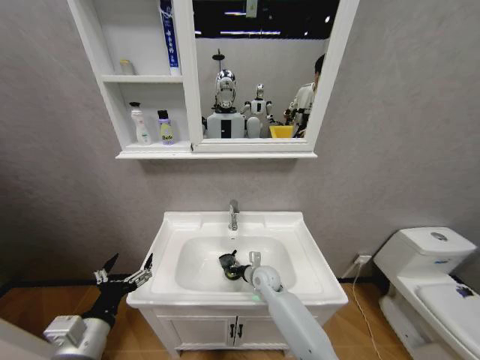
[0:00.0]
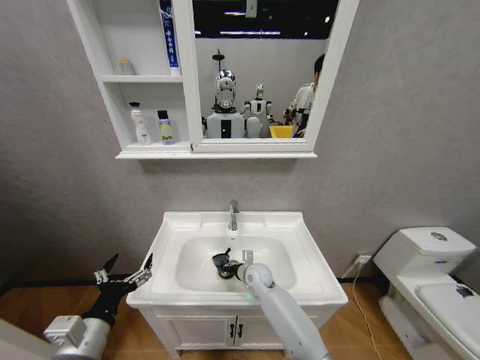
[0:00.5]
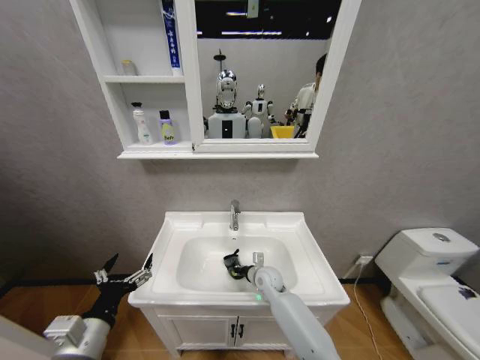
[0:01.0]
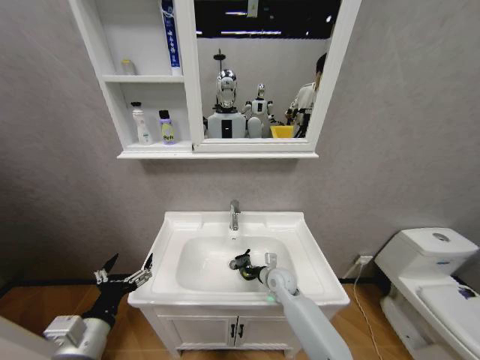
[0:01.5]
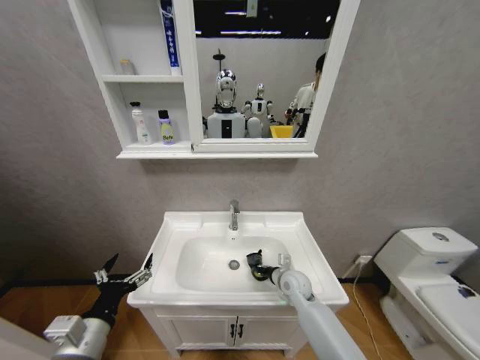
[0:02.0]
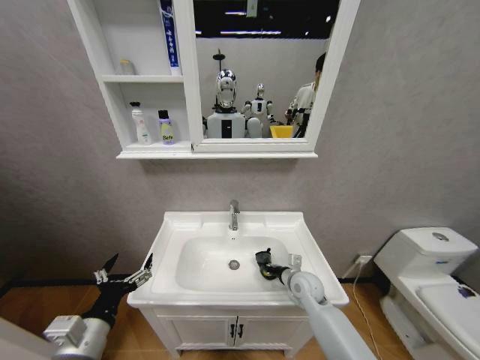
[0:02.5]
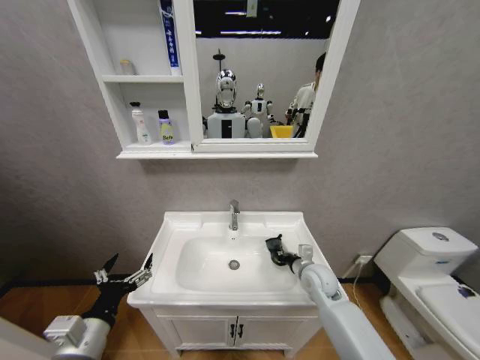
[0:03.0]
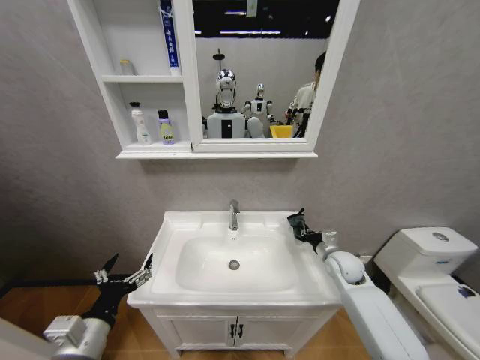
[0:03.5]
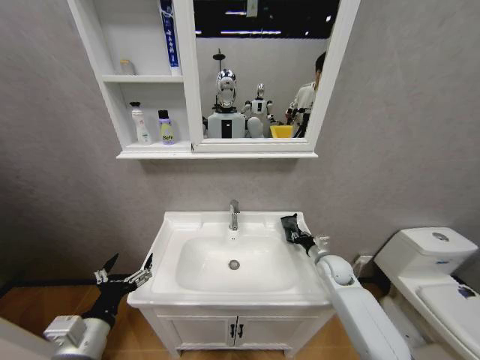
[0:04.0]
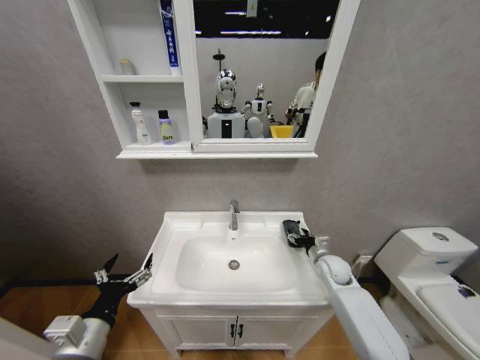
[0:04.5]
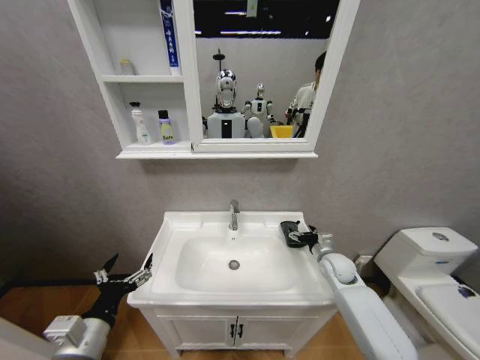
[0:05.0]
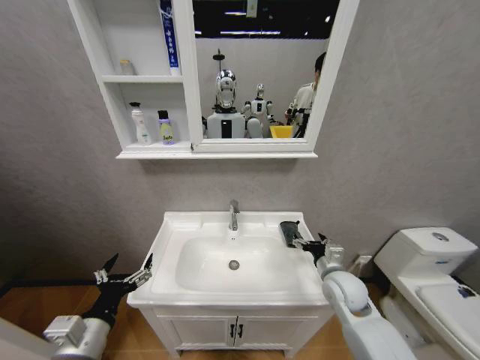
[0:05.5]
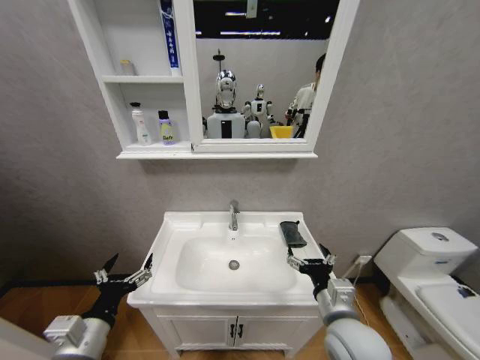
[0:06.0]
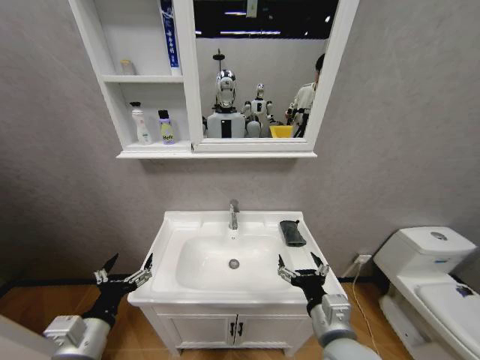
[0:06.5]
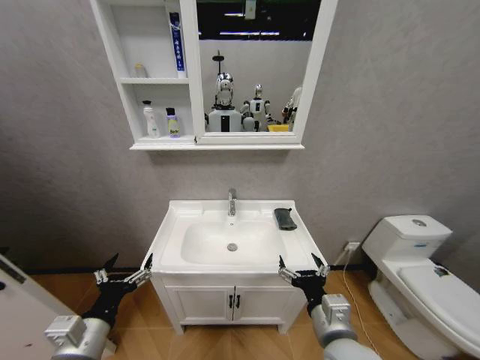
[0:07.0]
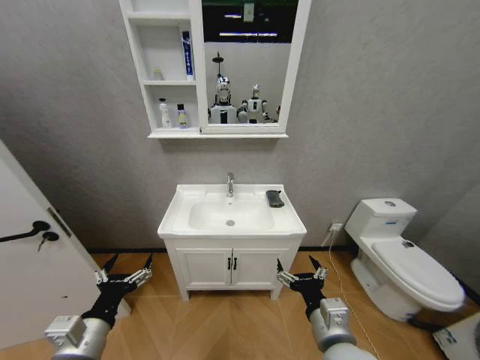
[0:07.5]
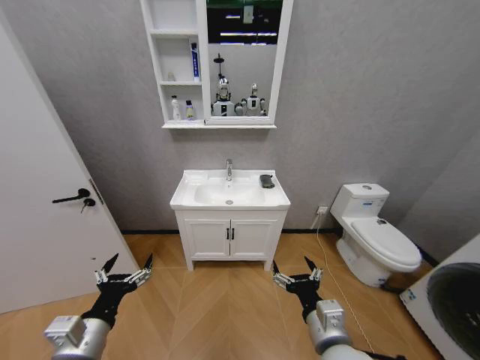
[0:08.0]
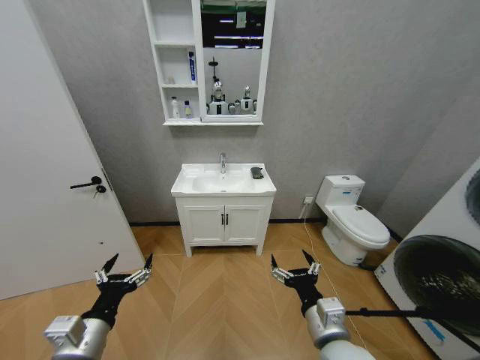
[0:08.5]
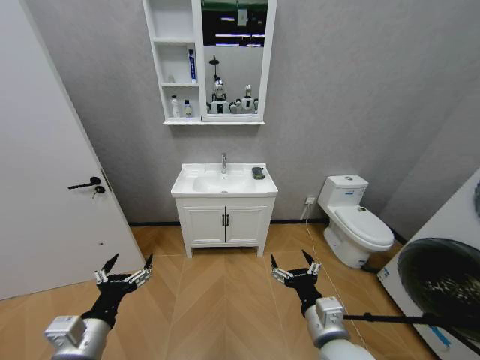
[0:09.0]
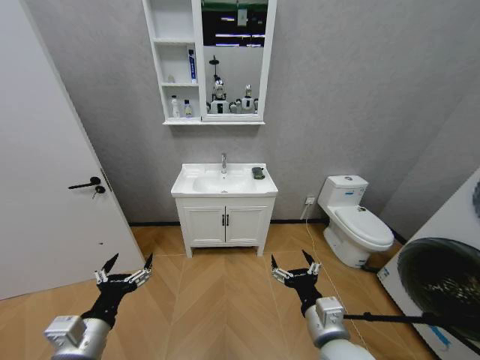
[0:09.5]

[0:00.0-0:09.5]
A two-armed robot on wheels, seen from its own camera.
Task of the whole recording: Move facial cleanser and shampoo from washbasin to cabinet, then wipe washbasin with towel.
0:00.0 to 0:02.0: The right gripper goes about 10 cm to the right.
0:02.0 to 0:04.0: The right gripper shifts about 15 cm to the right.
0:04.0 to 0:05.5: The right gripper goes approximately 15 cm backward, upward and to the left, and opens its fingers.
0:05.5 to 0:07.5: The right gripper moves backward and to the left, approximately 20 cm.

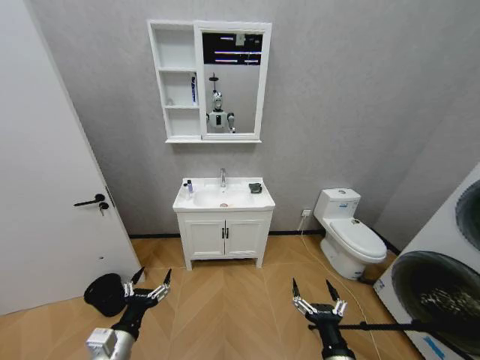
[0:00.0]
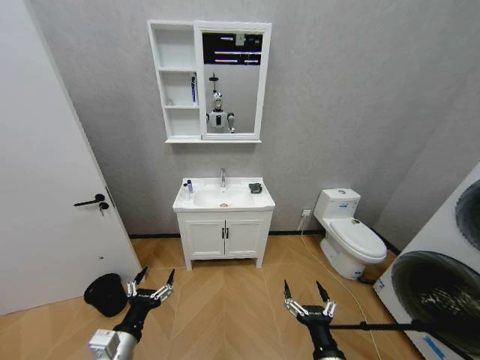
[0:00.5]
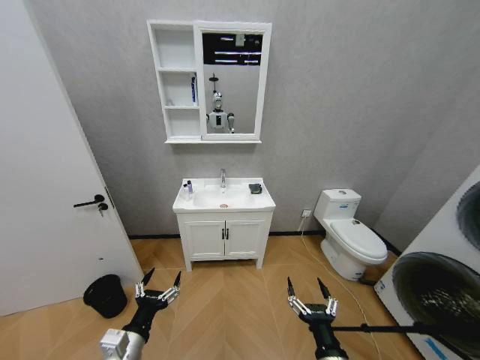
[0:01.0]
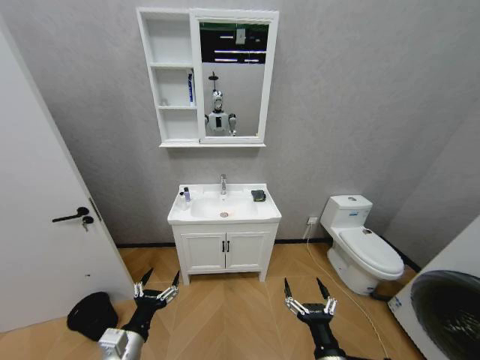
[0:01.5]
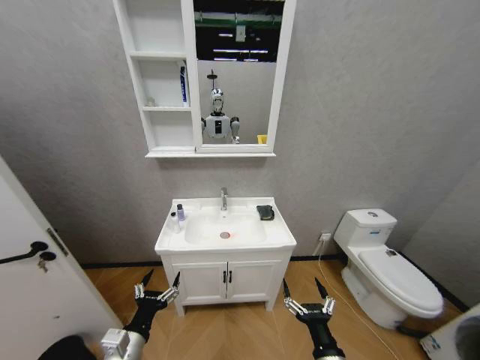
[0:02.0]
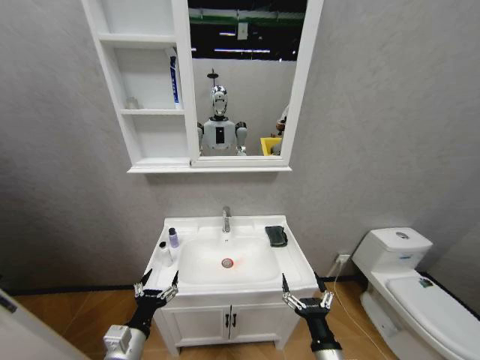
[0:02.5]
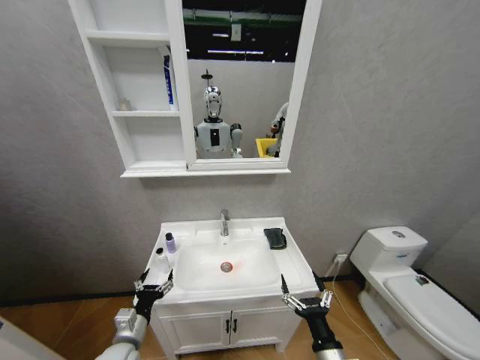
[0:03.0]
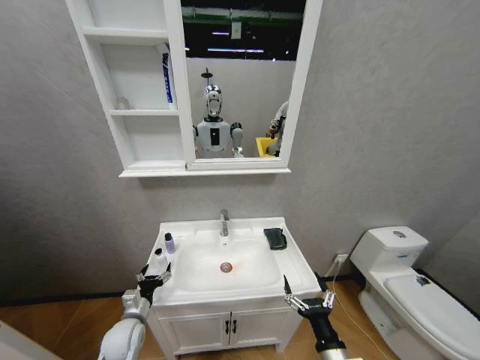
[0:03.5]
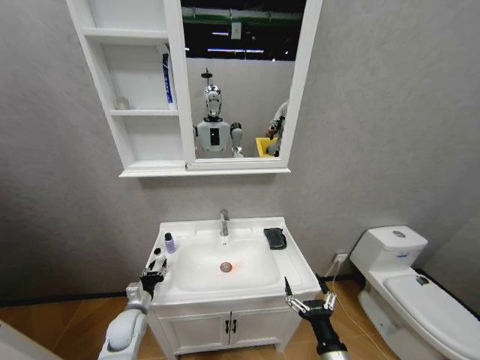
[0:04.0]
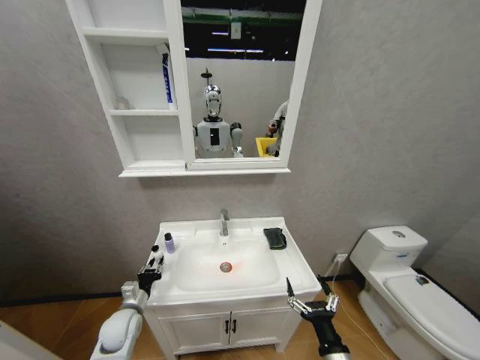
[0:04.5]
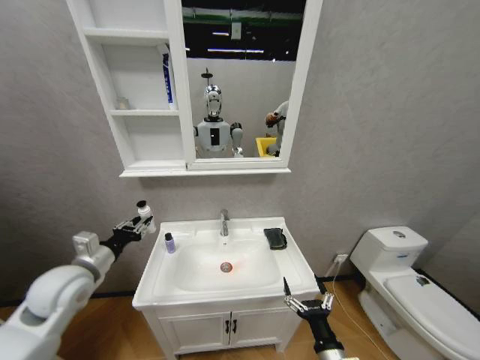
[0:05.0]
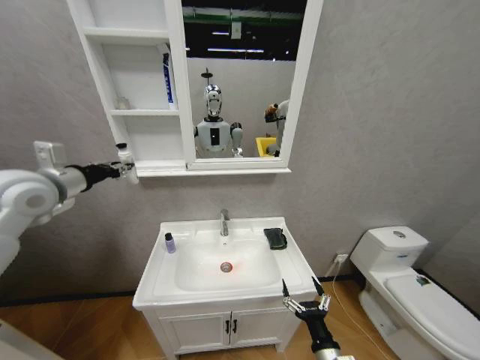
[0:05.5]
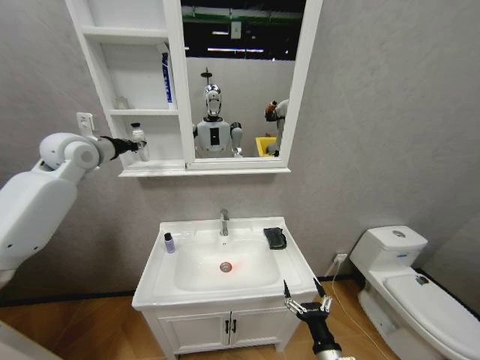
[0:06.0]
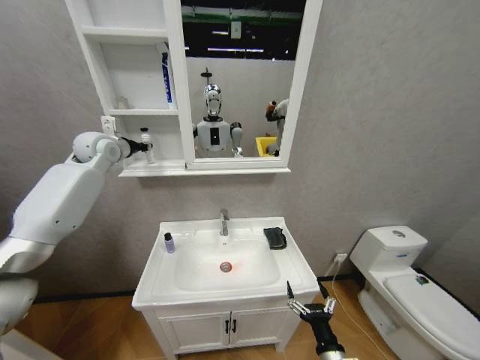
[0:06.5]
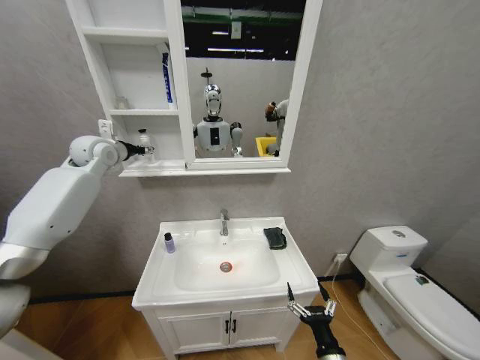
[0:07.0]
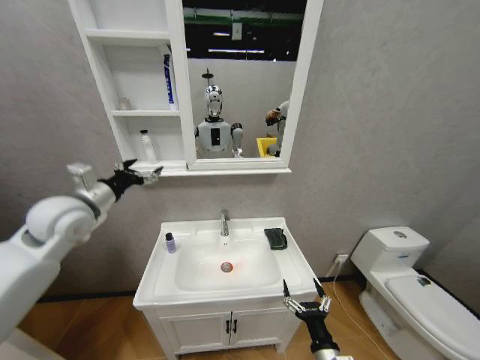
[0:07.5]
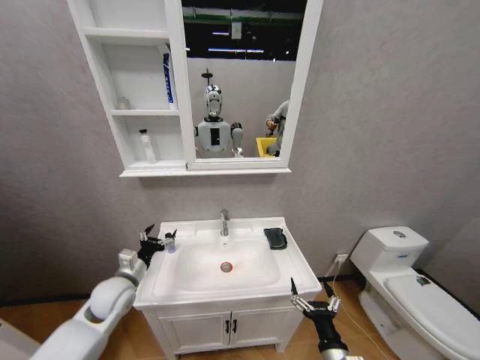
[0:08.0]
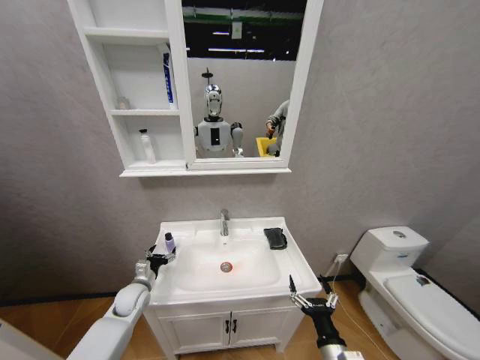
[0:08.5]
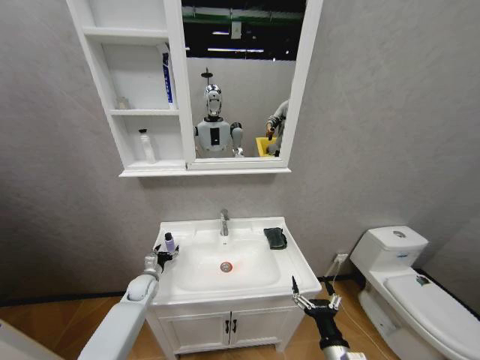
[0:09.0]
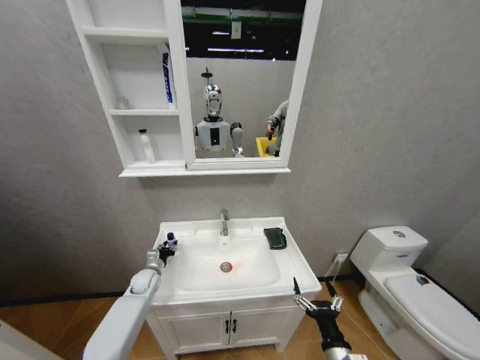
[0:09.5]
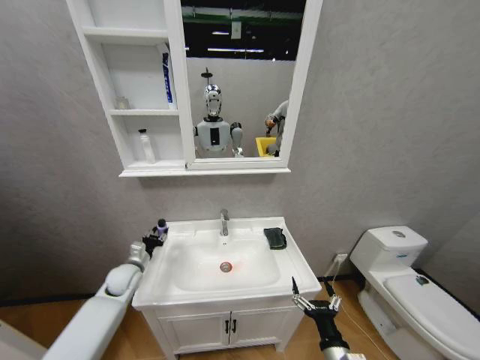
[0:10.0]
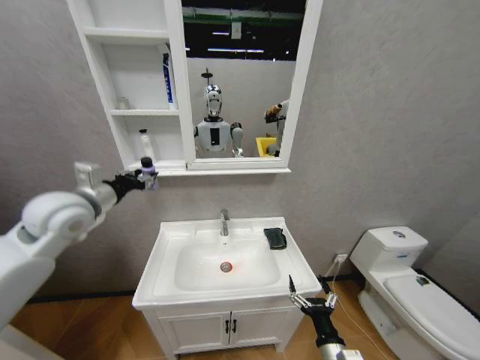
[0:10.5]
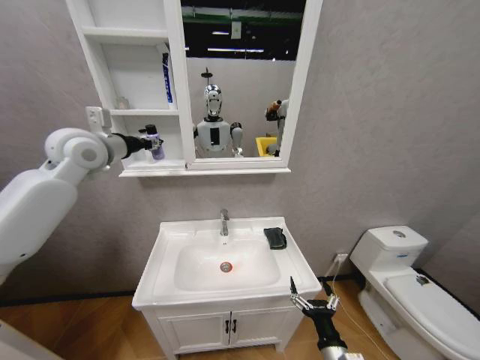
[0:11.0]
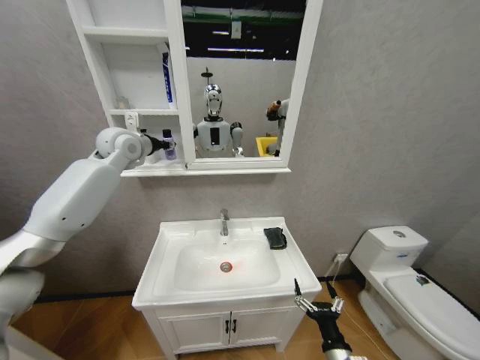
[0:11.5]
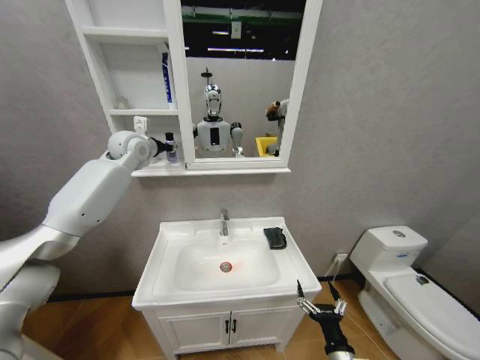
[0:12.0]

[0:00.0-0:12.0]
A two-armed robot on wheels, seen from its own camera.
Task of the whole recording: Move facial cleanser and shampoo from washbasin to cabinet, then wipe washbasin with towel.
0:02.0 to 0:04.0: The left gripper moves forward and downward, some 20 cm, and closes up.
0:04.0 to 0:06.0: The left gripper is displaced upward by approximately 50 cm.
0:06.0 to 0:08.0: The left gripper goes roughly 35 cm downward, and opens up.
0:08.0 to 0:10.0: The left gripper goes approximately 10 cm forward, and closes.
0:10.0 to 0:12.0: The left gripper travels upward by some 40 cm.

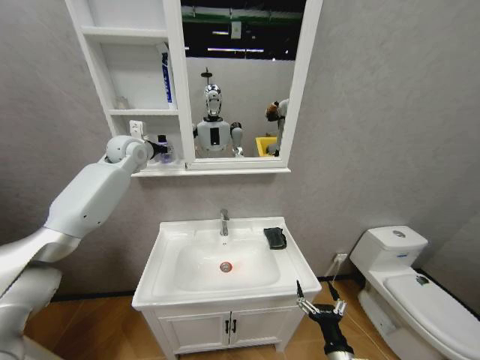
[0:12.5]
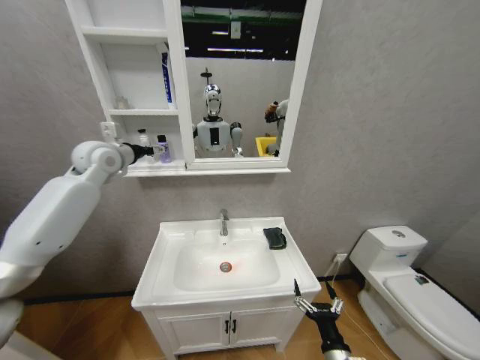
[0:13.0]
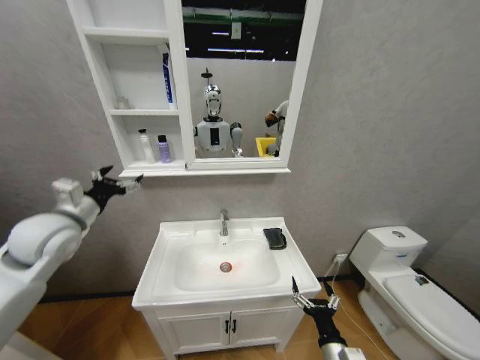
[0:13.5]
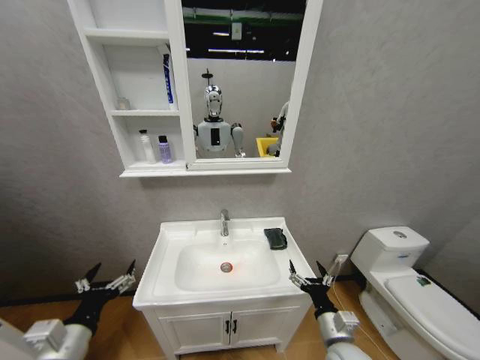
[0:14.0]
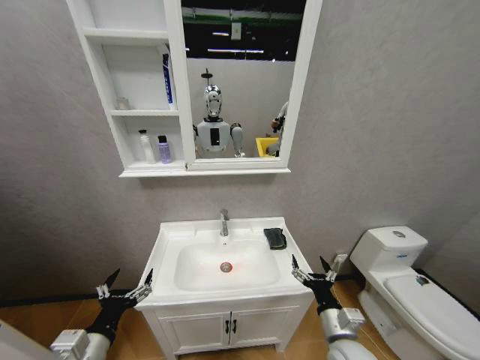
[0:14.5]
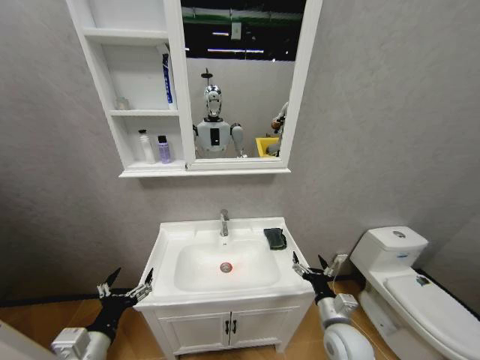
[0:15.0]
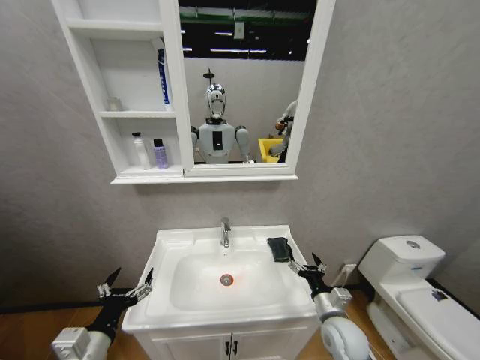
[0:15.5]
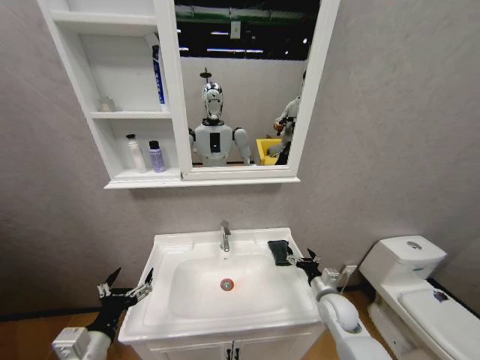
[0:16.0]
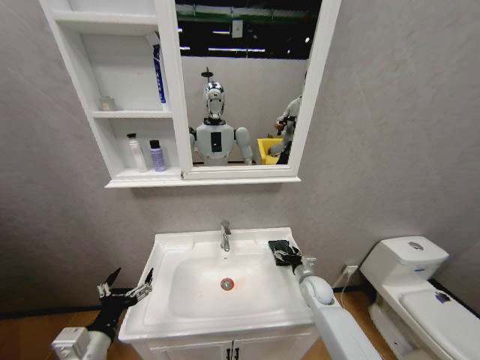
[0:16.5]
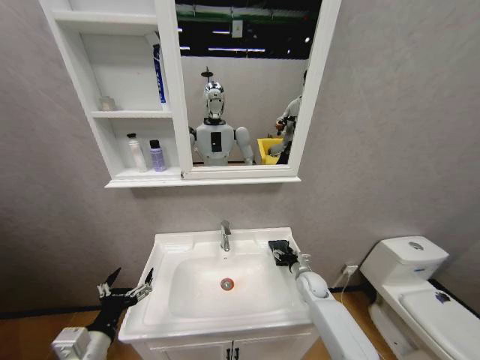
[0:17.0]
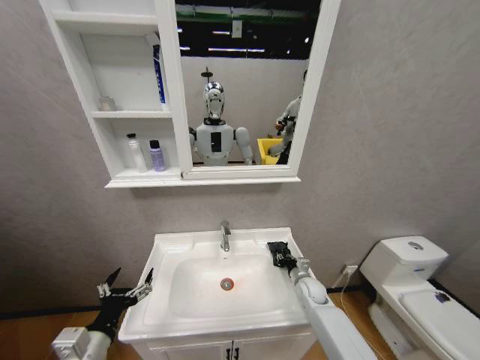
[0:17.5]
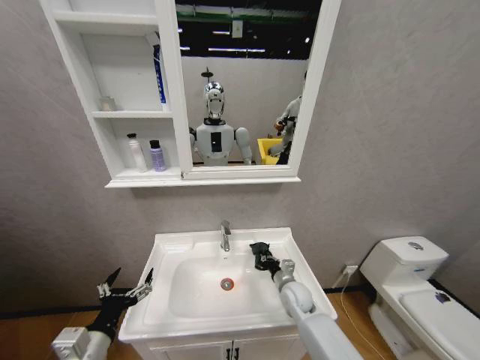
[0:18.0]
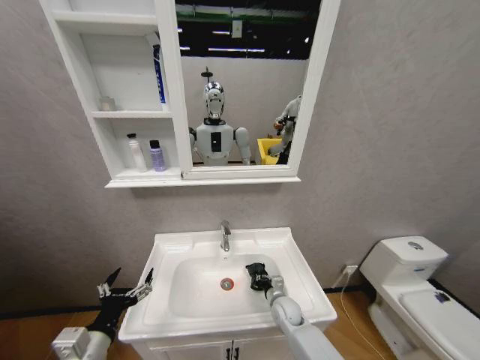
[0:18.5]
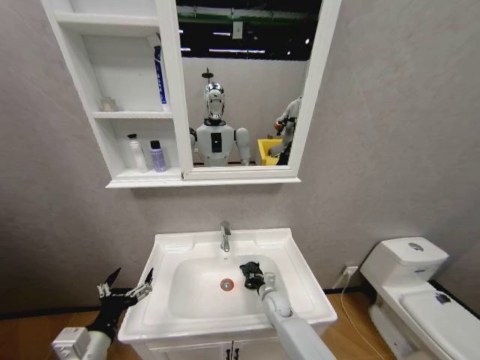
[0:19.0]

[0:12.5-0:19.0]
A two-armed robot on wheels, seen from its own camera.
Task of the whole recording: Move facial cleanser and shampoo from washbasin to cabinet, then wipe washbasin with towel.
0:12.5 to 0:14.5: The right gripper travels forward and upward by roughly 10 cm; the left gripper travels backward and downward by some 50 cm, and opens its fingers.
0:14.5 to 0:17.0: The right gripper heads forward, covering about 25 cm.
0:17.0 to 0:19.0: The right gripper moves to the left and downward, about 15 cm, and closes its fingers.
